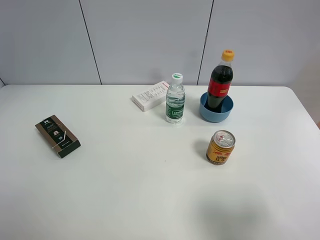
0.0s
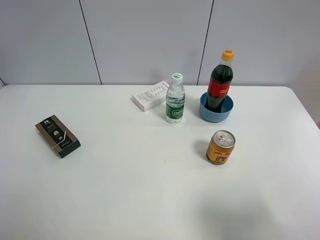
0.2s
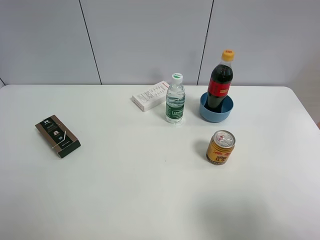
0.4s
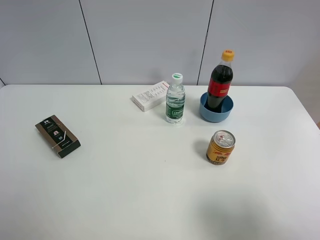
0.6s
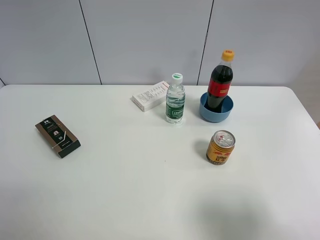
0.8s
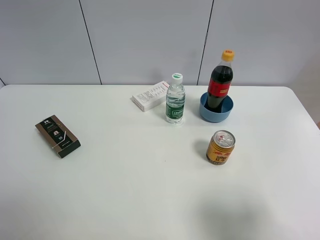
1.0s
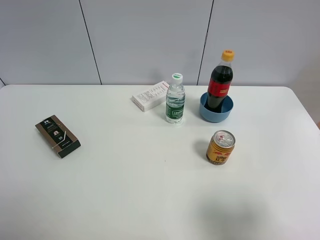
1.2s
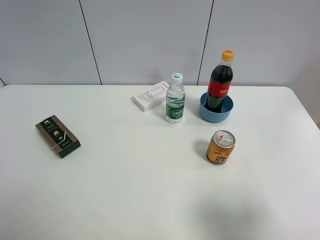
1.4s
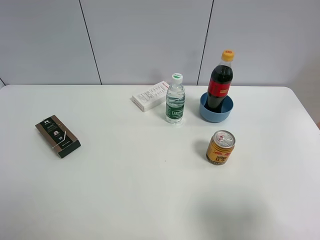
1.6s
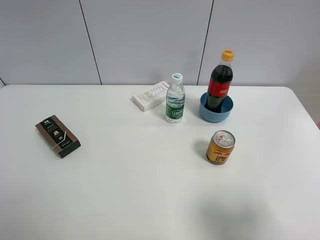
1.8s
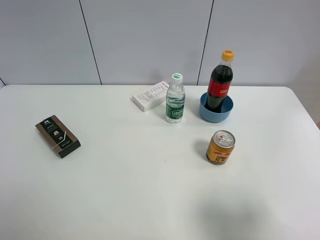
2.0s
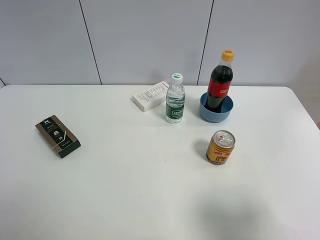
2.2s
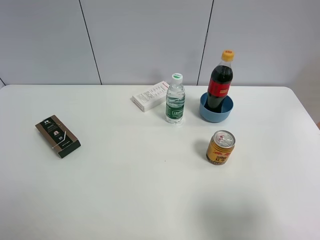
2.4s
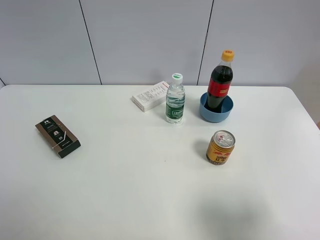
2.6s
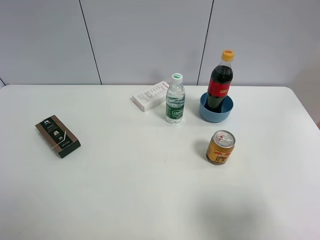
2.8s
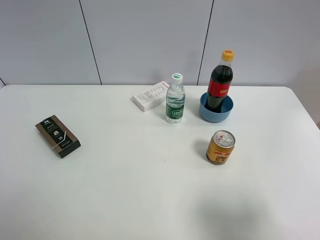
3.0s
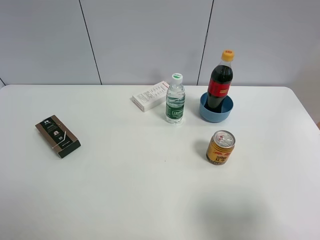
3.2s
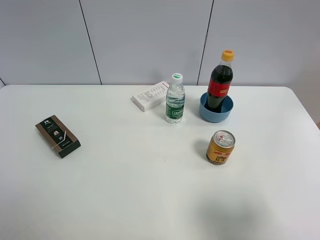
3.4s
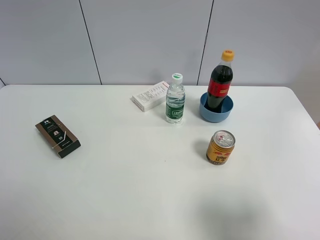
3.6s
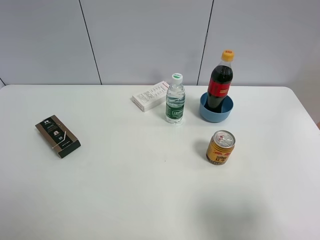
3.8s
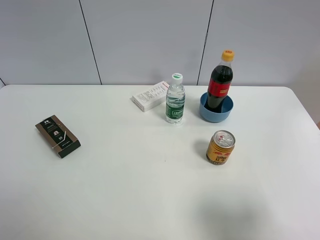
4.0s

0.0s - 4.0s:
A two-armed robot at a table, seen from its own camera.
Task of the whole recording: the gripper move the object.
0.0s - 1.4s: The left gripper heads backward, downward and to the left, covering some 30 cm.
2.6s - 4.0s: The two grippers keep their place.

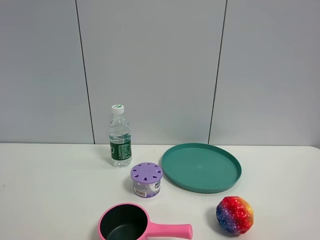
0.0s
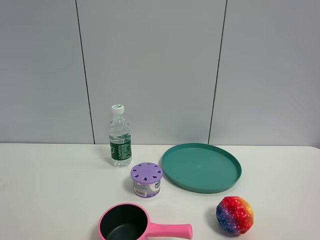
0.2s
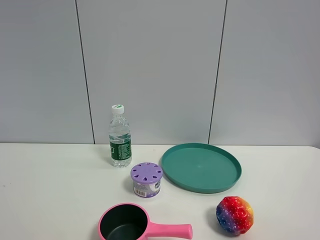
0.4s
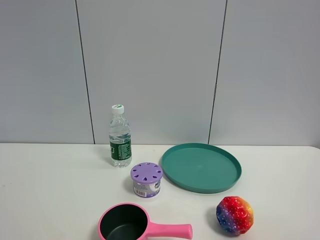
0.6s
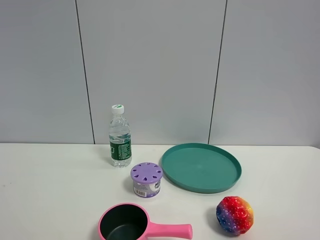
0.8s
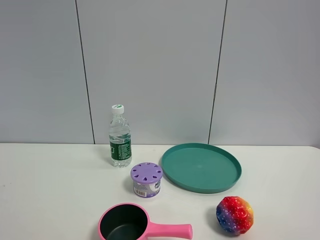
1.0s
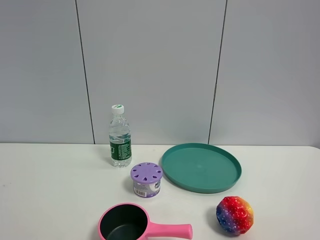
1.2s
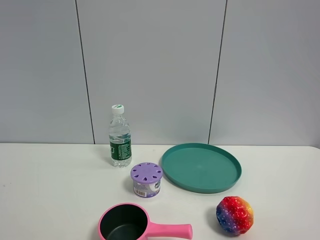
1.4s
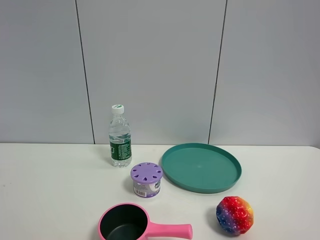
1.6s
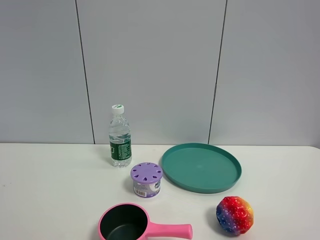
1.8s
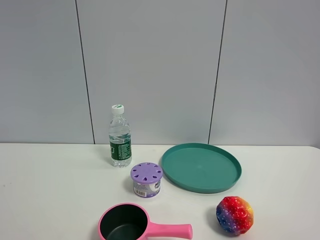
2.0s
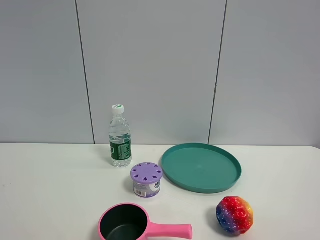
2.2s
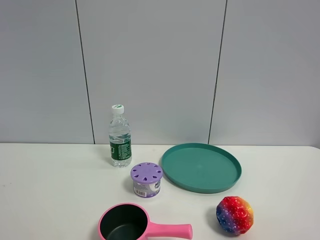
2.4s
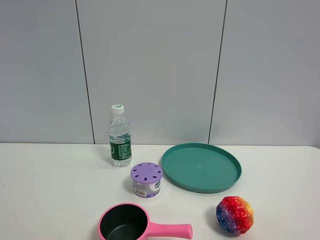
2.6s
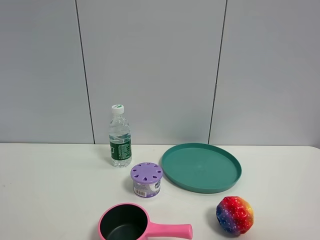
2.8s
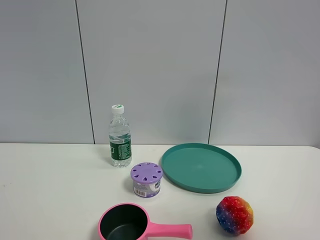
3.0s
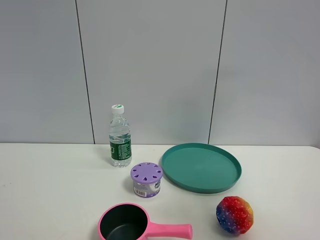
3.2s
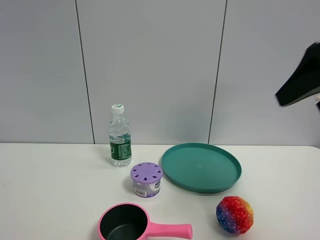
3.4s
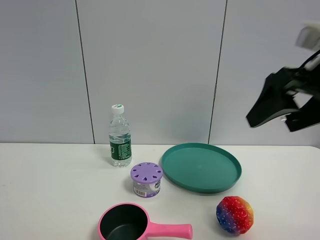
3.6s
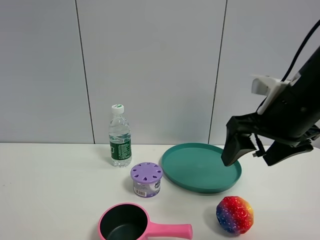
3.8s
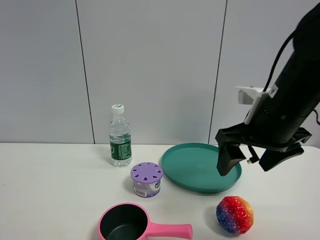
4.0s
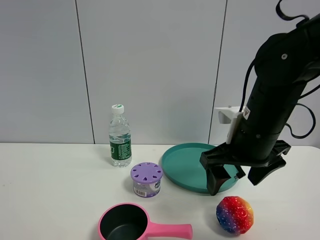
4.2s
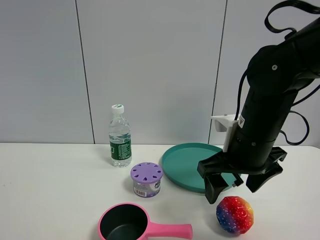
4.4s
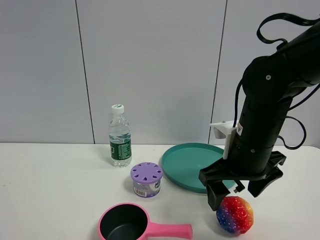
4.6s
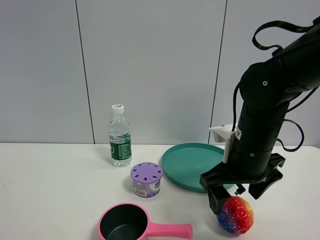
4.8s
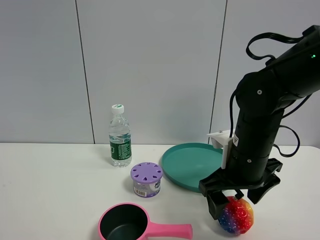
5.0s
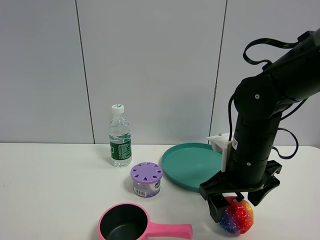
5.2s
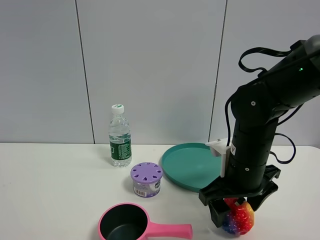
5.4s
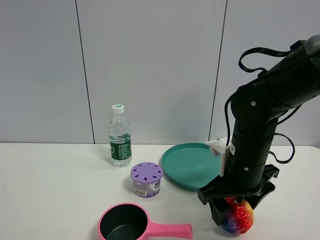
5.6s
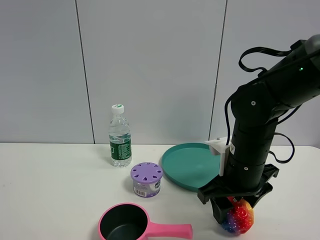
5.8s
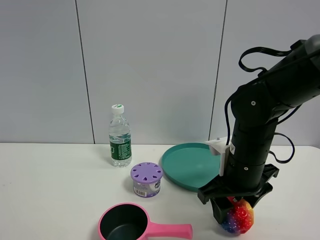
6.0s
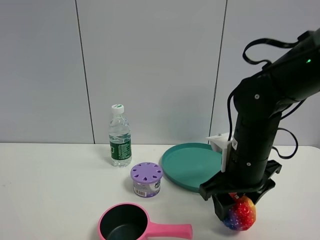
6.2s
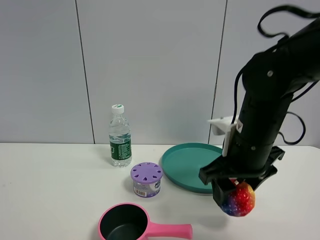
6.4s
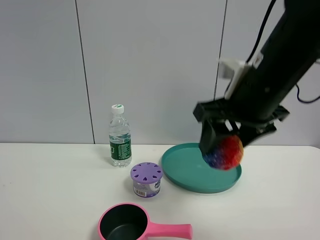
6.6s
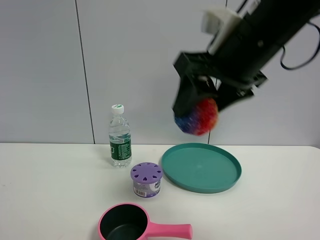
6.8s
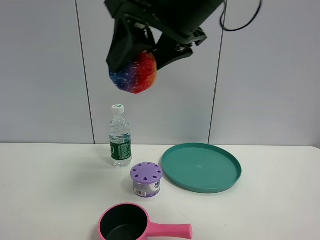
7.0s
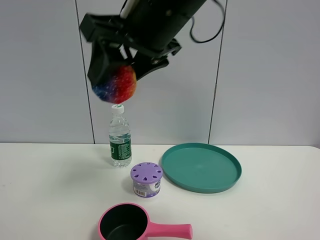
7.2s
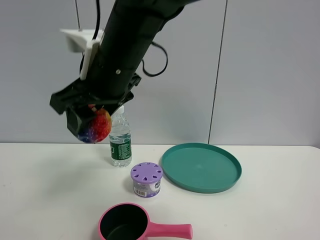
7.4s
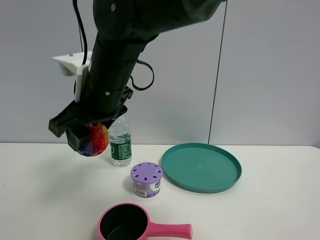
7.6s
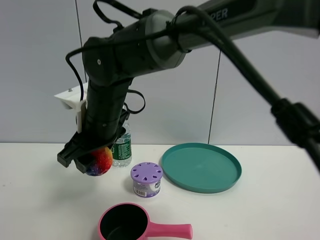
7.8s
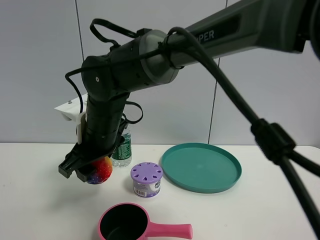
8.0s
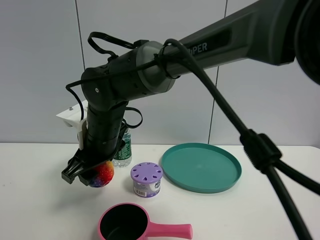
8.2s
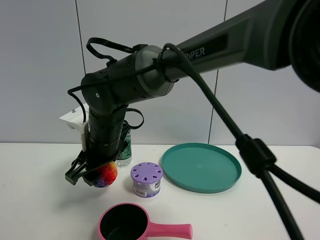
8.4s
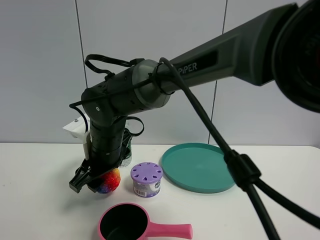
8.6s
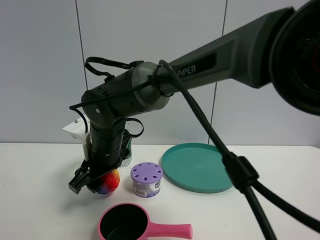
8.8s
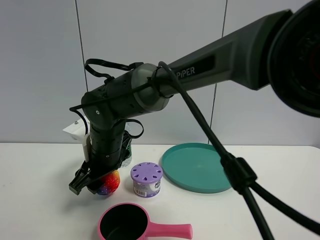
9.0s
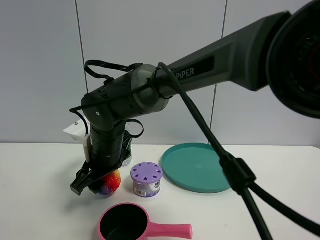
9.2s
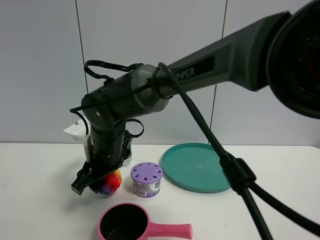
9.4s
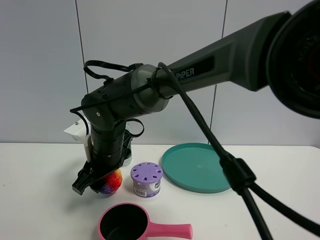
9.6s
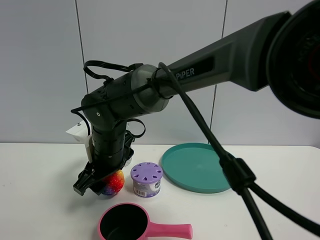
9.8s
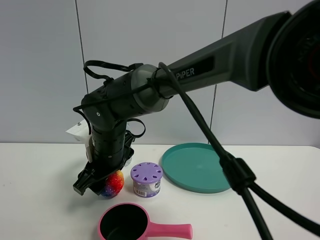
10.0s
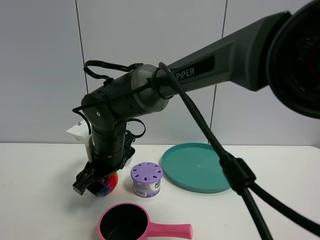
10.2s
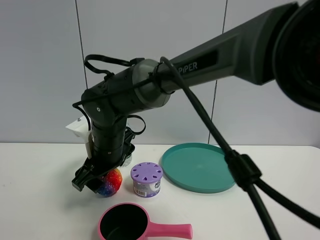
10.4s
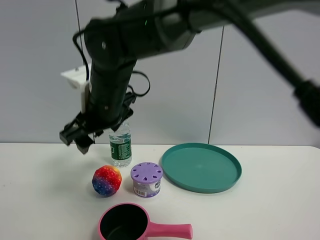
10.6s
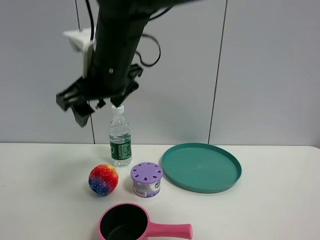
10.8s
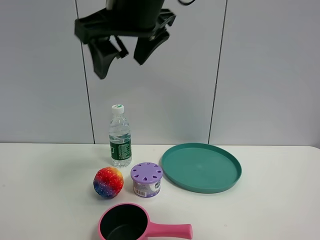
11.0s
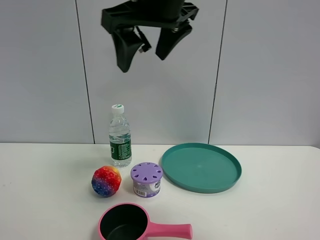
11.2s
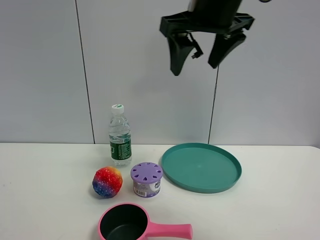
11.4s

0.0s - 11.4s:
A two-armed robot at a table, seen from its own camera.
Task of the whole recording: the gripper move the object.
Step, 0.0s - 5.6s: Grasp the colorful ball with the right gripper.
Step, 5.8s - 10.4s: Place the colorful ball on the table with the right gripper.
0.0s - 1.4s: Neither gripper changes place.
2.8s - 4.2s: The right gripper is displaced forward, downward and to the left by some 30 cm.
4.2s - 5.6s: The right gripper moves downward, some 5 cm, and closes.
5.6s - 7.2s: The right gripper goes approximately 25 cm upward and to the left.
7.2s - 8.6s: The right gripper moves downward and to the left, approximately 20 cm.
8.6s - 10.0s: Both grippers stay put.
10.0s - 11.4s: The right gripper moves upward and to the right, approximately 30 cm.

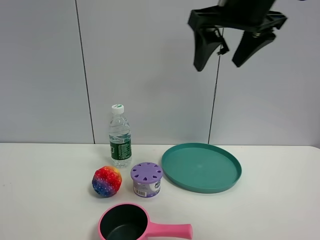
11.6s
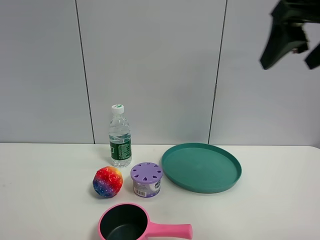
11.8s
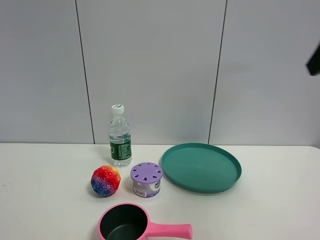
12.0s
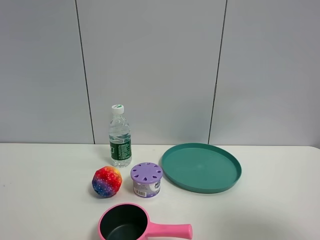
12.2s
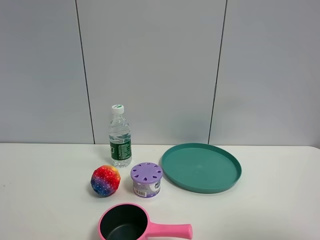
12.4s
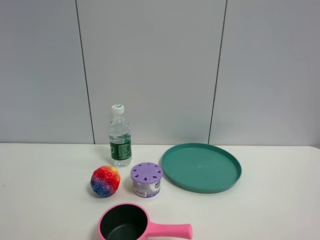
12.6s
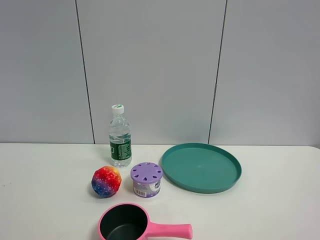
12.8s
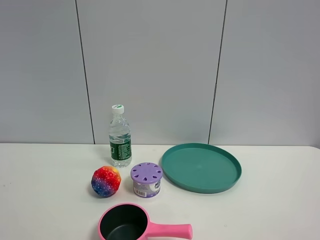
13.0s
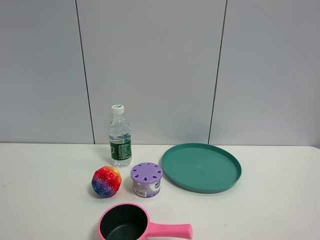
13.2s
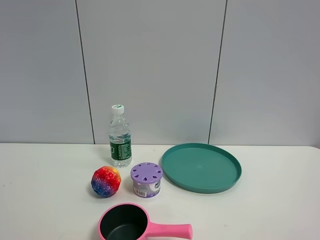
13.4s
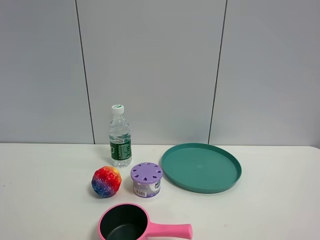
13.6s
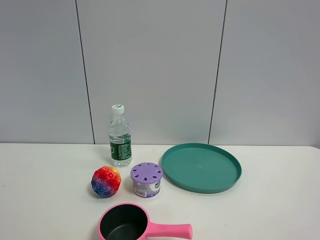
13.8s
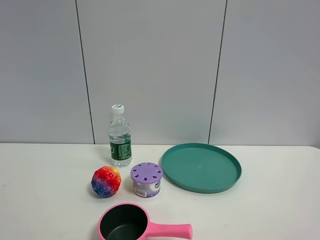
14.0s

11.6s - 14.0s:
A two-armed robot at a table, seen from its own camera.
Task of the whole recording: the gripper move the object.
11.6s - 12.8s: The right gripper is displaced backward and to the right by about 35 cm.
12.8s - 14.0s: Both grippers stay put.

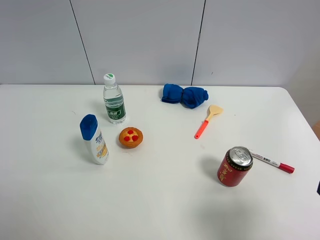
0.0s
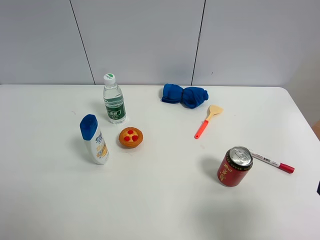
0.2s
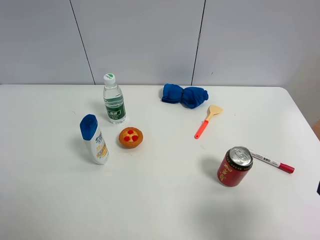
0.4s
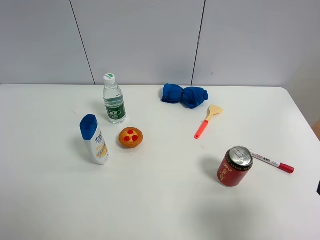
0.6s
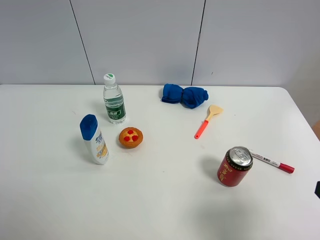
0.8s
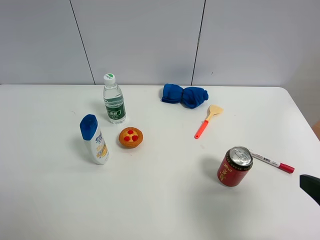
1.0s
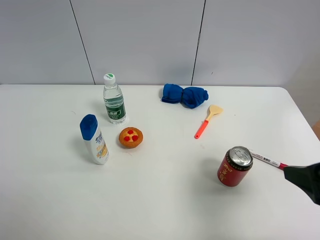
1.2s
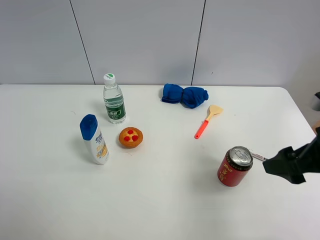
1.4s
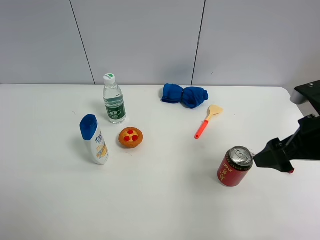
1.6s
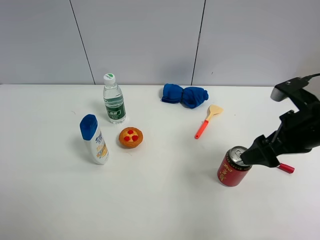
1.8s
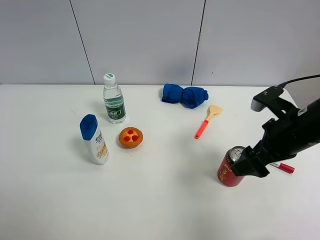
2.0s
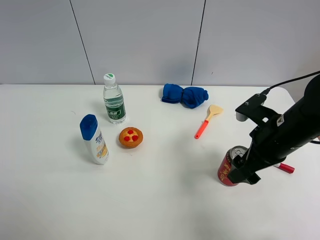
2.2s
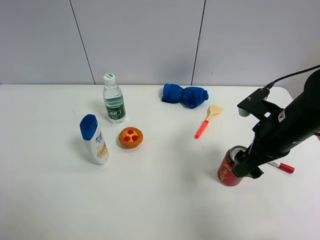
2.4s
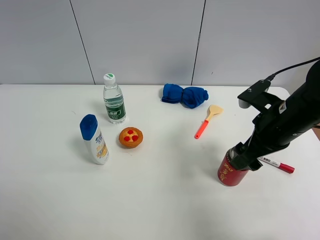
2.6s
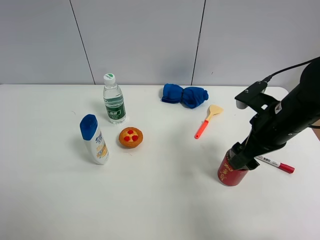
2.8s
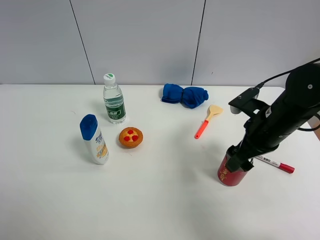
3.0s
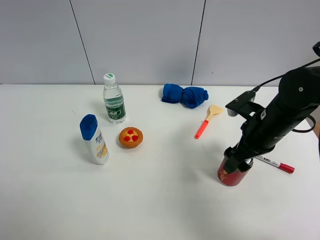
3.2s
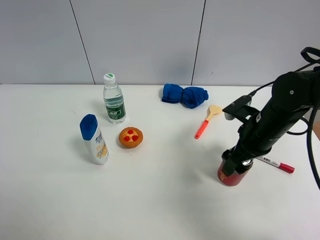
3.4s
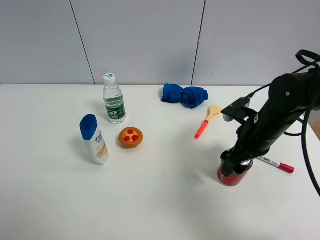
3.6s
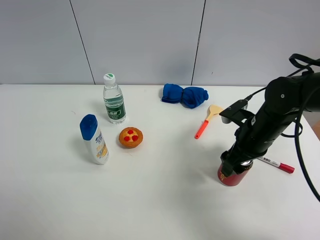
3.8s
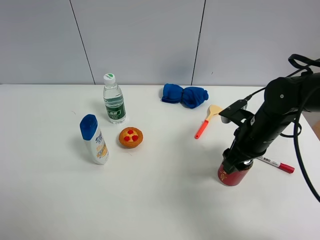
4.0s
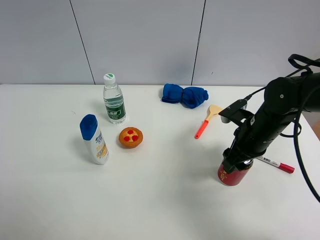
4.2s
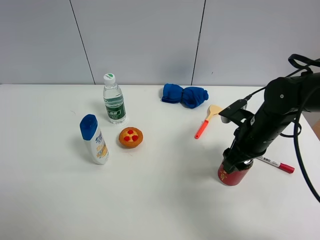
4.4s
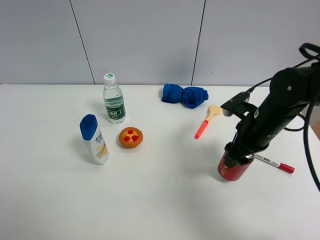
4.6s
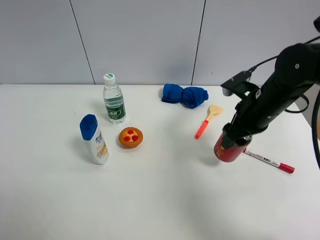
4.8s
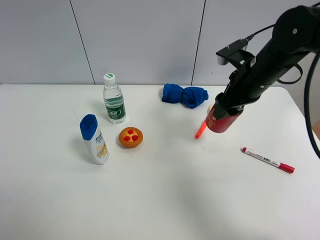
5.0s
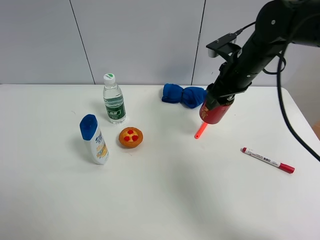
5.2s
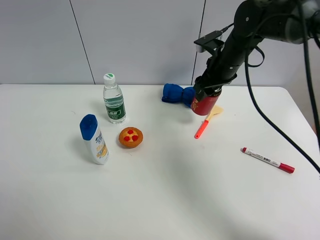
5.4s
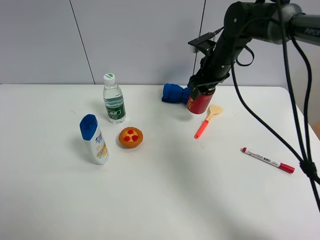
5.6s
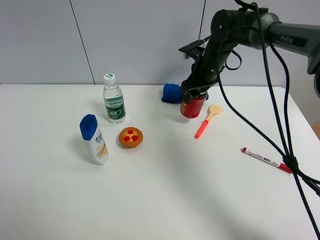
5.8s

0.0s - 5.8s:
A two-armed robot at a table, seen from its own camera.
Task of the whole recording: the gripper move the object.
Step, 0.0s - 4.0s: Grasp the Jia Duo Bao with the right gripper.
0.0s - 1.4s: The right gripper is displaced forward by roughly 15 cm.
1.4s - 2.8s: The right gripper is displaced forward and to the left by roughly 10 cm.
2.8s - 4.4s: The right gripper is displaced downward by approximately 5 cm, and closes up.
4.4s - 5.8s: The right gripper travels forward and to the left by some 20 cm.
